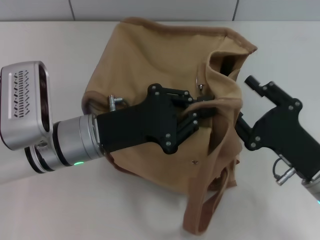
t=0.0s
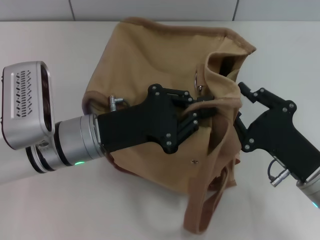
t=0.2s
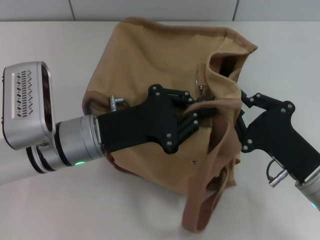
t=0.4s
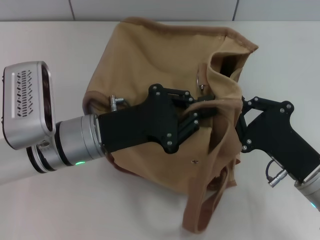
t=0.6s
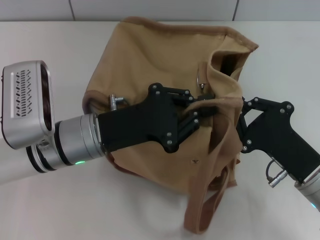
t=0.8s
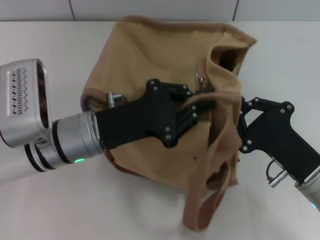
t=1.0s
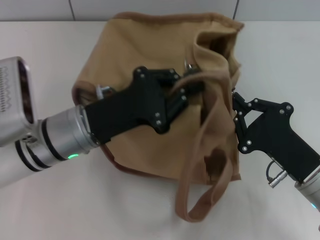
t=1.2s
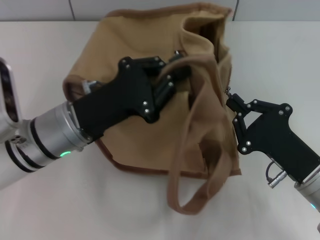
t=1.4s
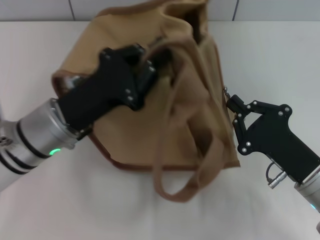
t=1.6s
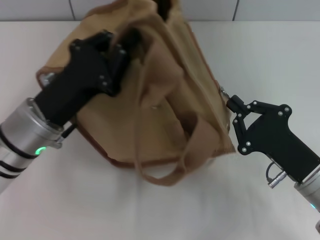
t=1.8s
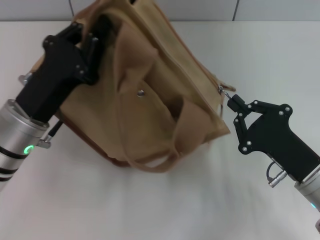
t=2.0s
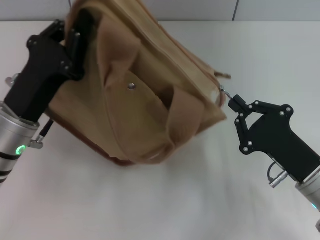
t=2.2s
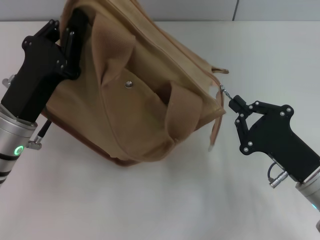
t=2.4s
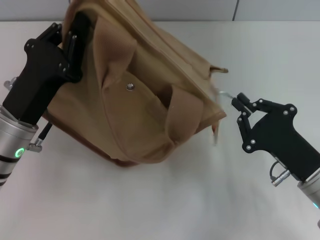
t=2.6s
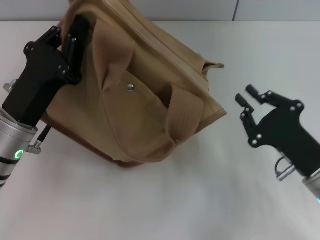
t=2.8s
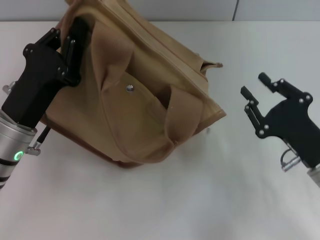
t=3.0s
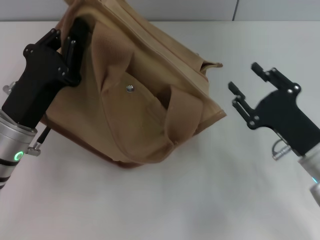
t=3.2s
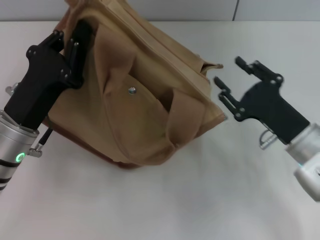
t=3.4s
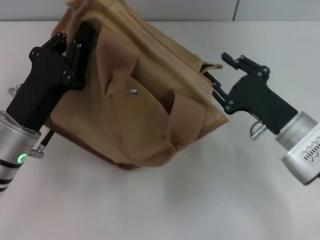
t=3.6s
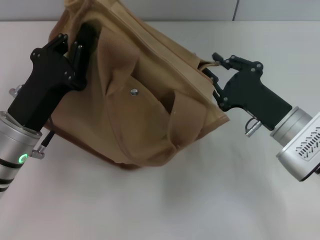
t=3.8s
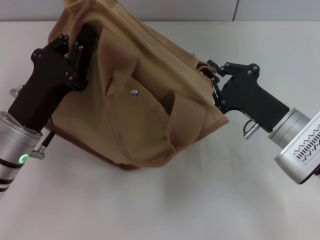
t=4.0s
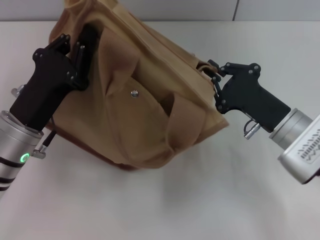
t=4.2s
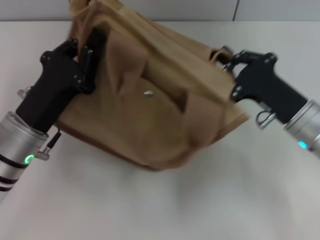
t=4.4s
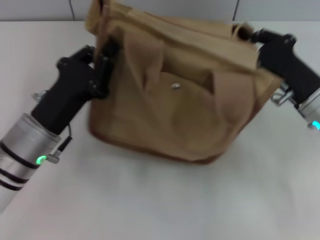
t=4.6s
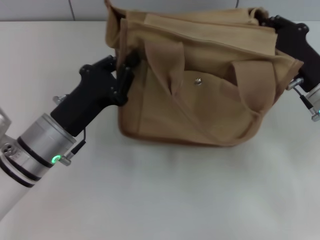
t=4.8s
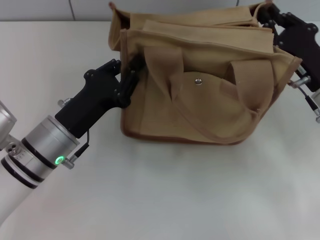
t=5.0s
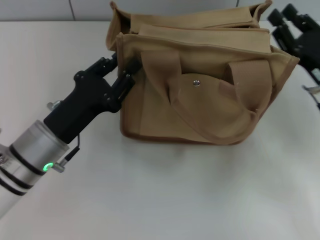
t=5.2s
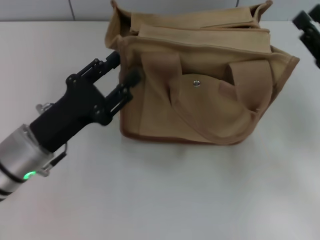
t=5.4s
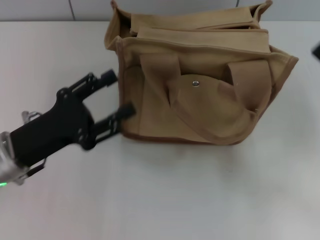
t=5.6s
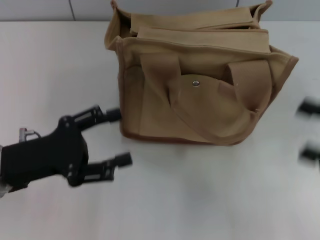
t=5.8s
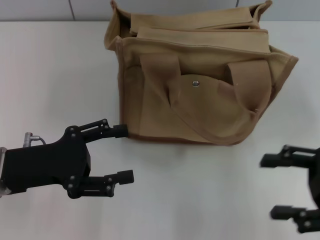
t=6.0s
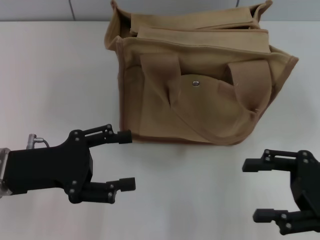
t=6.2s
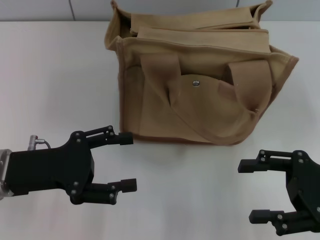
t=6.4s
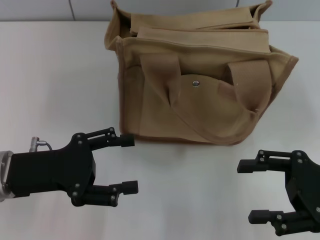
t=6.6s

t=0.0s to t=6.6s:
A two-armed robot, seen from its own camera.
Step, t=0.0s to t=2.6s: Pull open the zipper with your right hand.
Step, t=2.8s to t=5.4s: Grab the bag with your left hand.
t=0.0s to t=1.6s: The right gripper closes up.
t=1.6s to t=3.2s: The right gripper opens its fingers.
t=3.2s to t=5.0s: The right gripper is displaced forward by some 5 cm, and closes up.
t=5.0s to t=6.6s: The right gripper is displaced backward by approximately 10 cm, and opens its fingers, while the left gripper travels to the left by about 5 cm, and opens up.

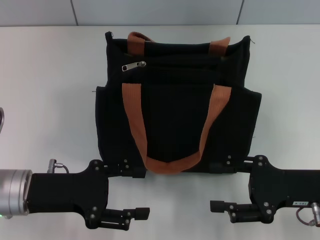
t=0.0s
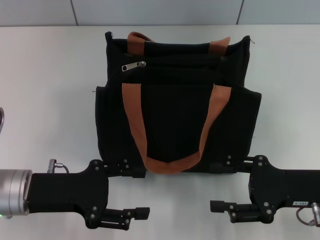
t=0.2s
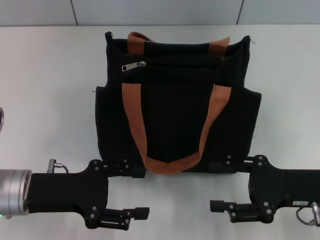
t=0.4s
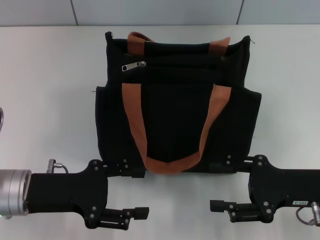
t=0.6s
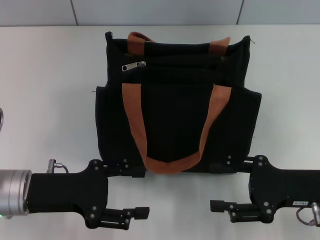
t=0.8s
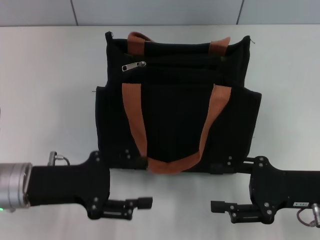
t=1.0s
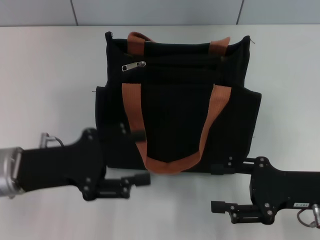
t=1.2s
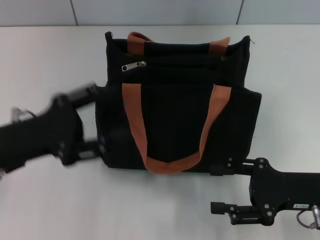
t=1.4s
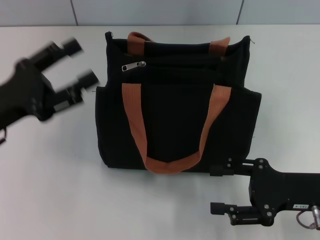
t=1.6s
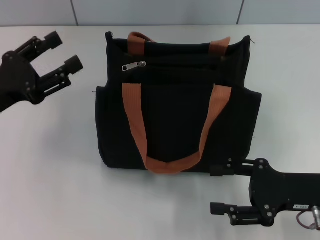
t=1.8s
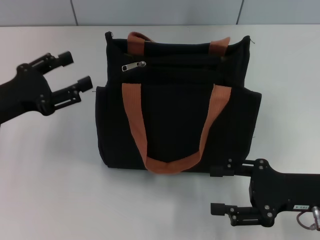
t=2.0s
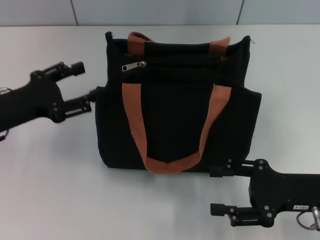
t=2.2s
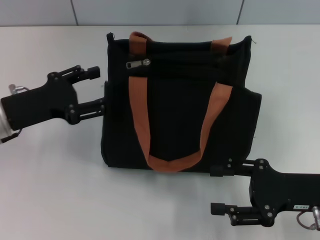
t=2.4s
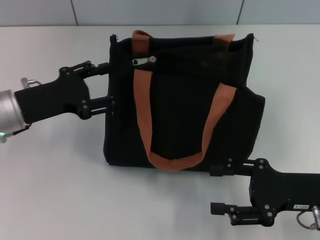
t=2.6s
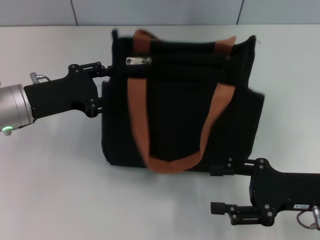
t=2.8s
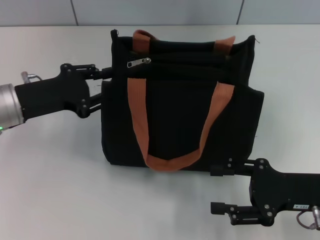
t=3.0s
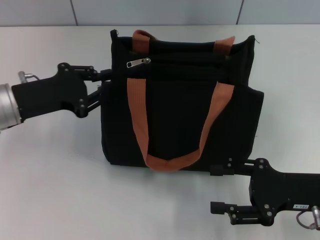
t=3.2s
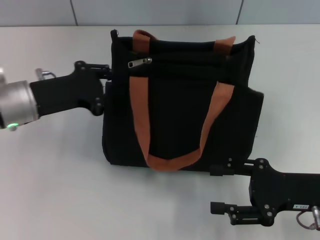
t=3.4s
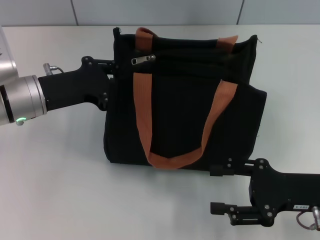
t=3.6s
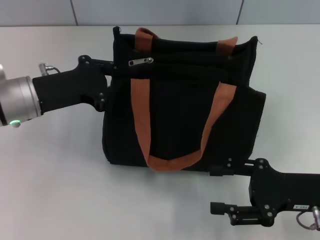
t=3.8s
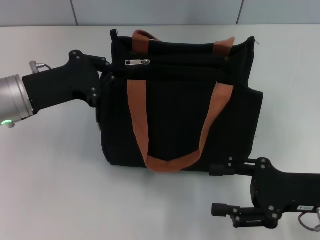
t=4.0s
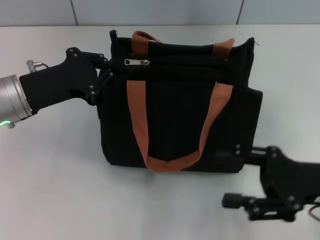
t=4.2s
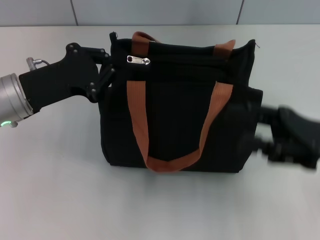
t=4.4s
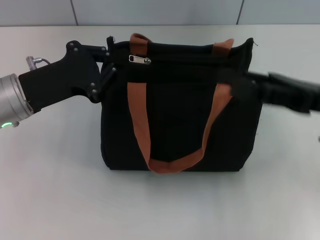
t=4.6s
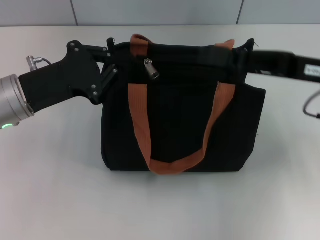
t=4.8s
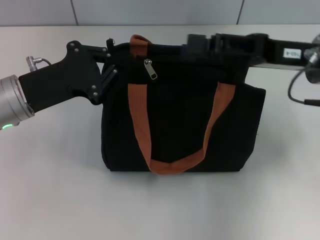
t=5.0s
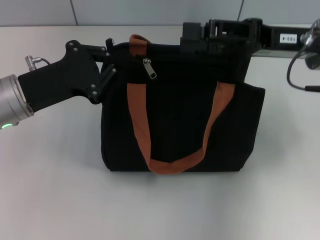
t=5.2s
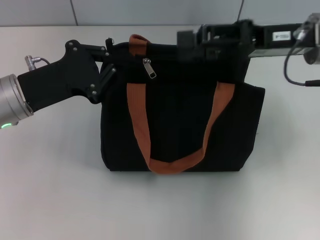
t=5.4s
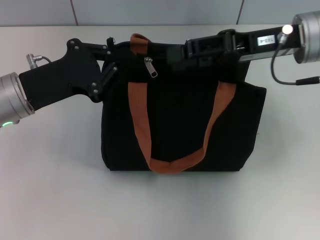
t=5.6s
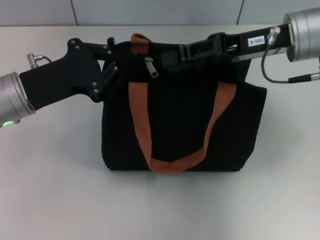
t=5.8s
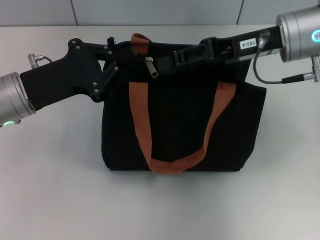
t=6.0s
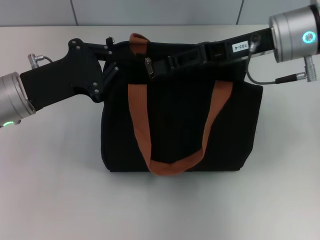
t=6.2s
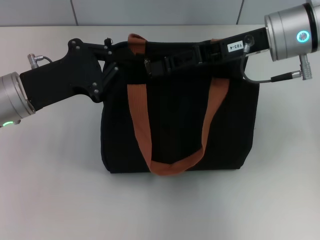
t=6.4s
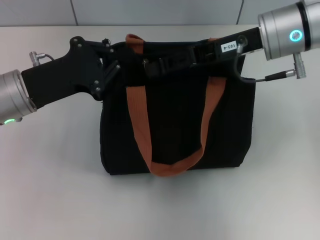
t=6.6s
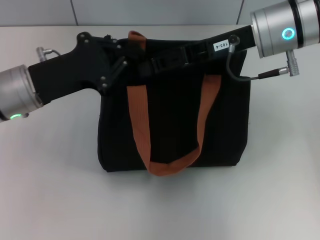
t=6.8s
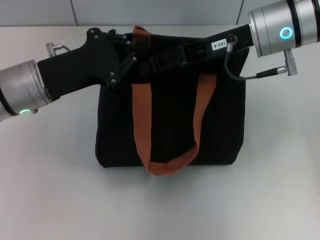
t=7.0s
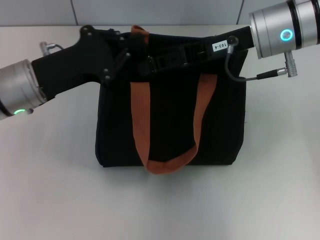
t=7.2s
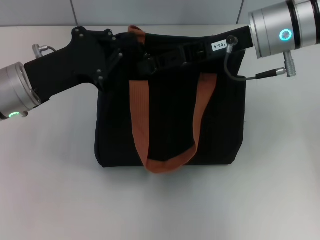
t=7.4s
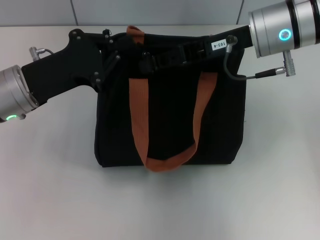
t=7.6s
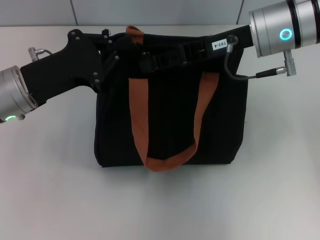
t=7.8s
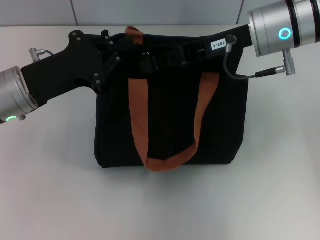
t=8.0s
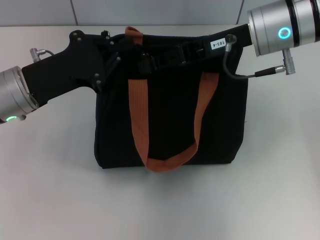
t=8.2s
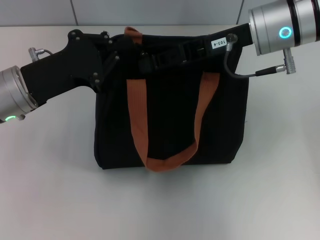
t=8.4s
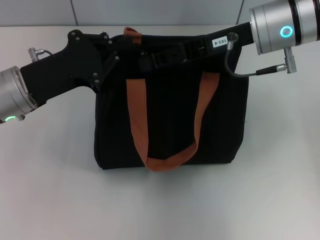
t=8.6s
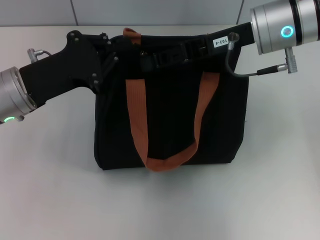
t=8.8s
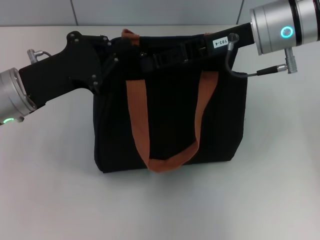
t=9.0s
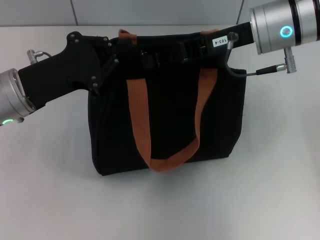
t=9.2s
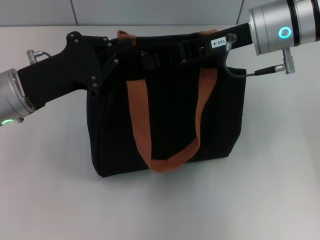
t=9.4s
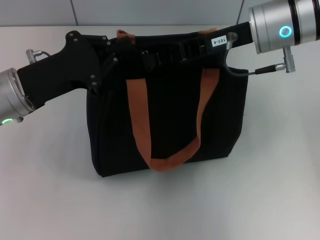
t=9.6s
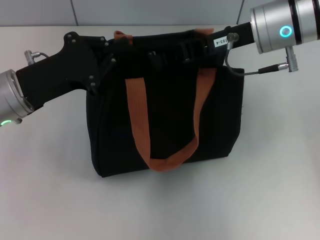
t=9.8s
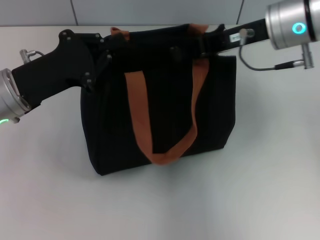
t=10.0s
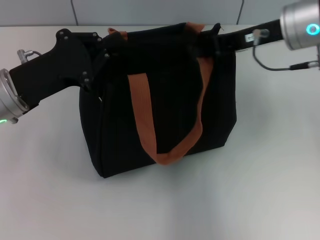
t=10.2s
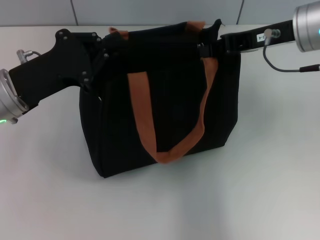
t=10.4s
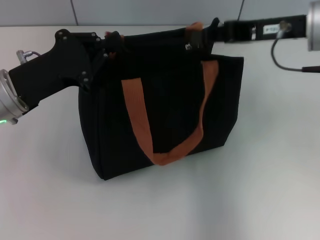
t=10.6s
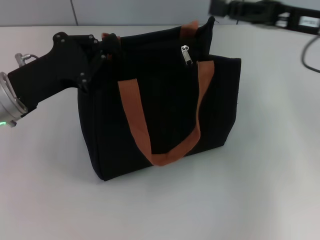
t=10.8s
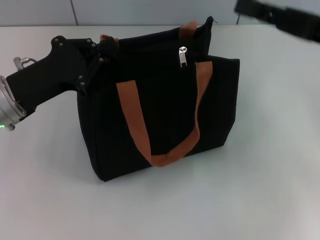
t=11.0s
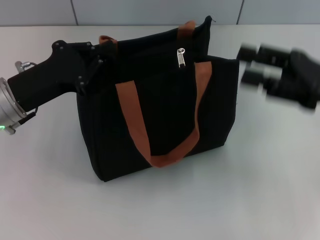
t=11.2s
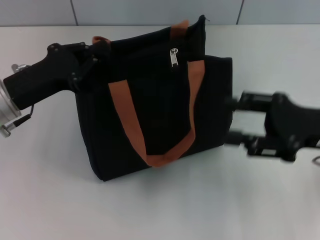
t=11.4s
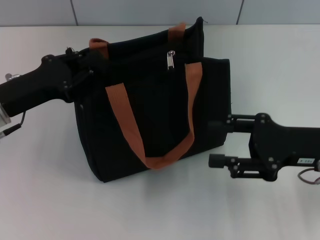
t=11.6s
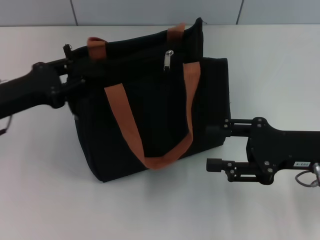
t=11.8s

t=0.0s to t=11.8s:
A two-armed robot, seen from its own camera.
Step, t=0.0s to t=10.6s: Pull up the zipper with your right hand.
t=1.4s to t=3.0s: The left gripper moves forward, approximately 10 cm.
t=3.0s to t=4.4s: The left gripper closes its fingers; the right gripper heads upward, covering some 5 cm.
t=4.4s to t=6.0s: The right gripper shifts about 15 cm forward, upward and to the left.
t=6.0s to t=7.4s: There are only small adjustments of the grippers.
t=7.4s to t=8.8s: Both grippers stay put.
t=8.8s to t=10.4s: The right gripper is displaced to the right by roughly 5 cm, and closes up.
t=10.4s to t=11.8s: The right gripper travels downward and backward by about 15 cm, and opens its fingers.

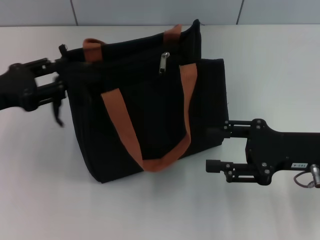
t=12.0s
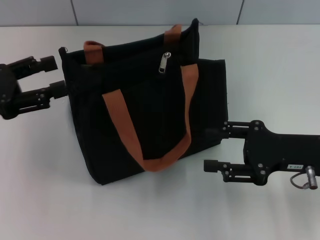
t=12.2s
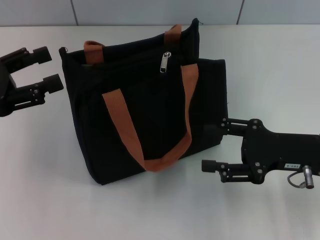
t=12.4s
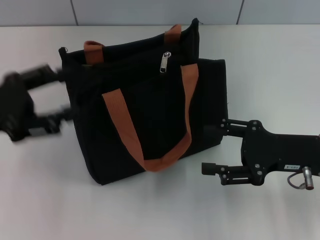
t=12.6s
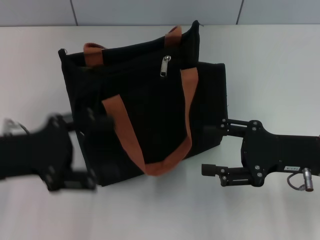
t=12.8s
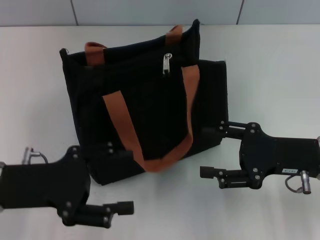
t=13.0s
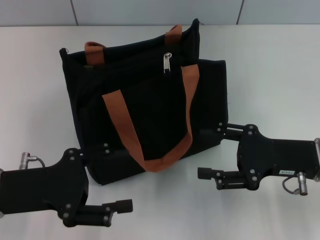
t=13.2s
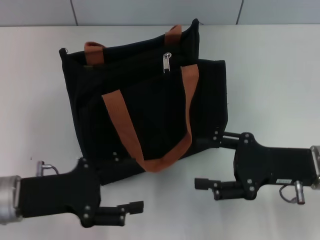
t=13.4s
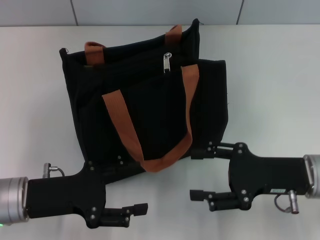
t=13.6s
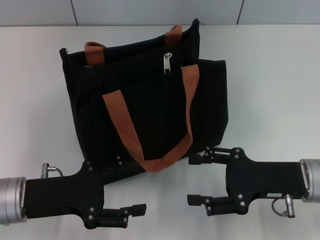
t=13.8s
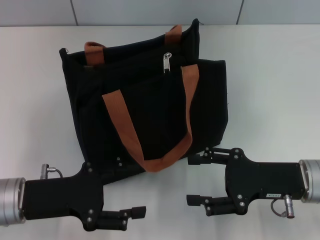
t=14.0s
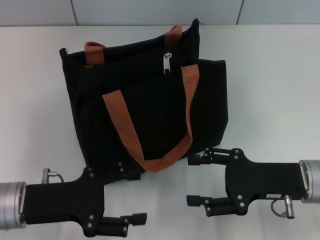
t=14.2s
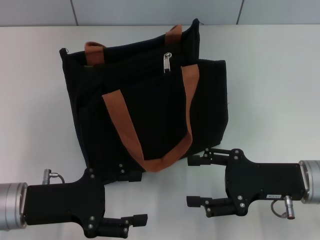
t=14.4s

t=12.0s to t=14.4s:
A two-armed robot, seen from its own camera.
t=12.0s to t=13.2s: The left gripper travels backward and to the right by approximately 10 cm, and opens its fingers.
t=13.2s to t=14.4s: The grippers move only a little.

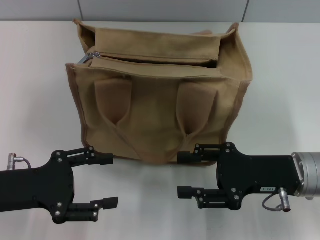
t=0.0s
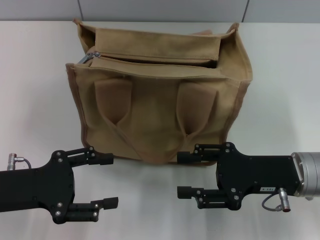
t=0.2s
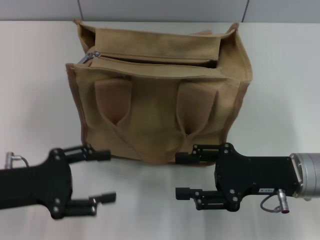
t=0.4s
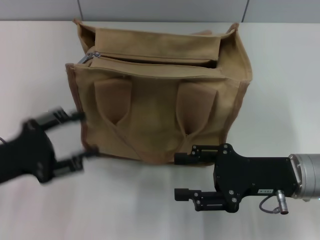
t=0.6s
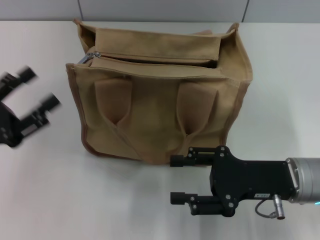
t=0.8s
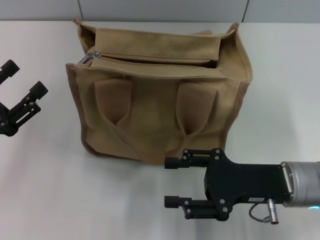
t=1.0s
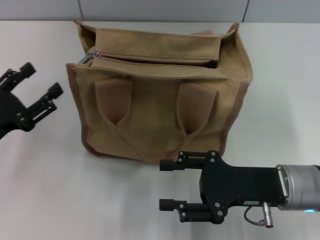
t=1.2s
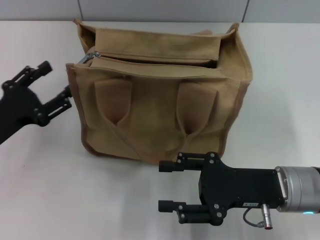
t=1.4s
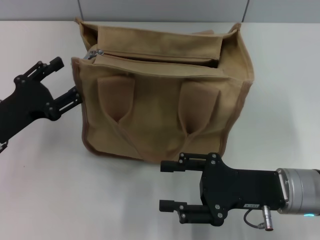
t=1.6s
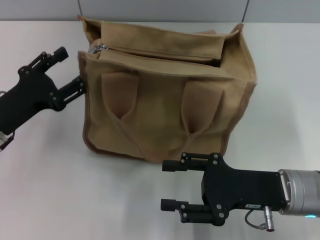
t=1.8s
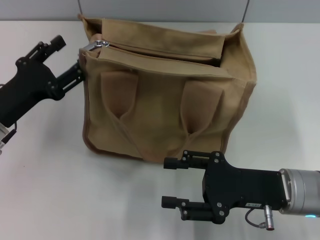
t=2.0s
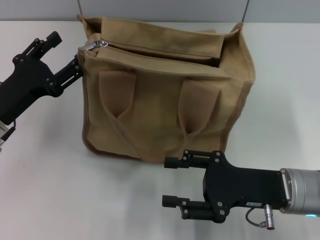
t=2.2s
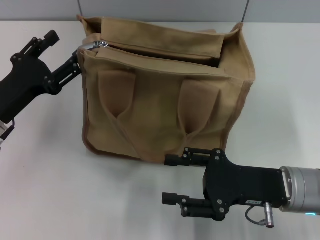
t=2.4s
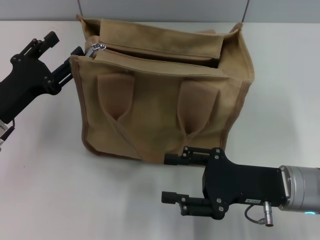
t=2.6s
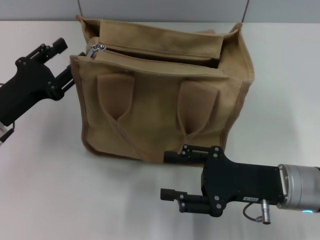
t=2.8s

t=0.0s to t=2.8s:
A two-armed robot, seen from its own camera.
t=1.4s to t=2.8s: The grippers stay close to where they were, moving slightly.
